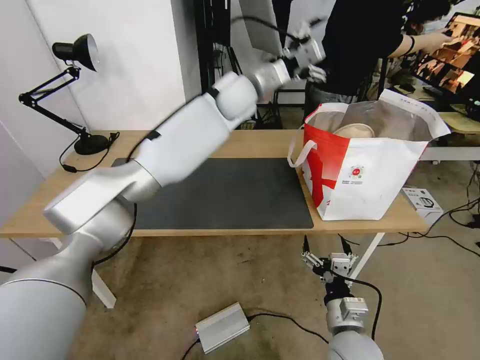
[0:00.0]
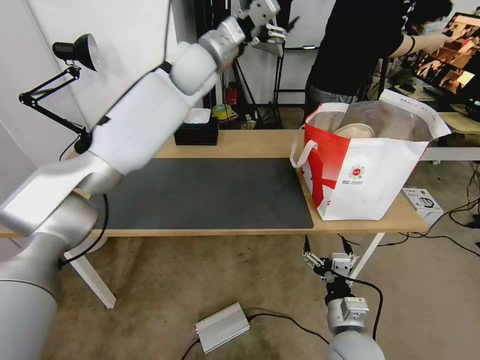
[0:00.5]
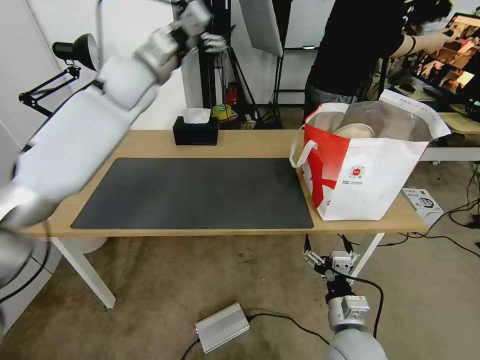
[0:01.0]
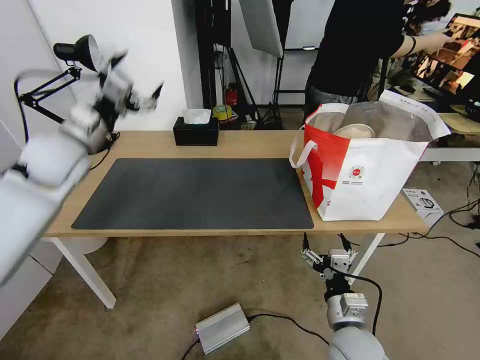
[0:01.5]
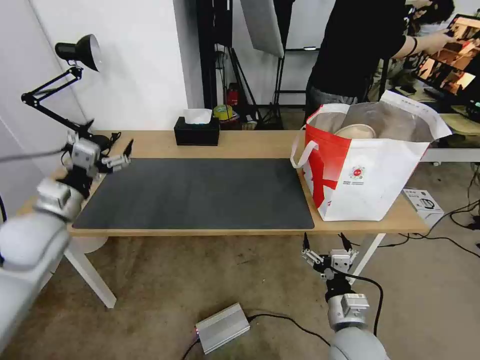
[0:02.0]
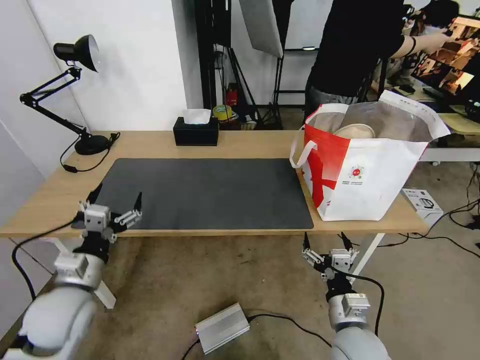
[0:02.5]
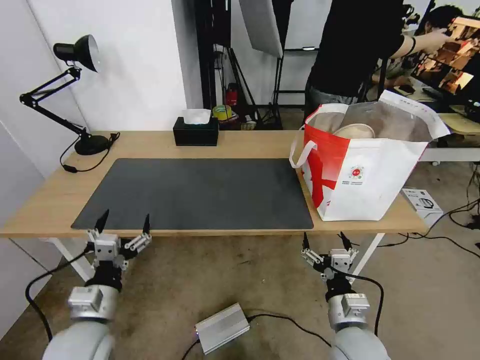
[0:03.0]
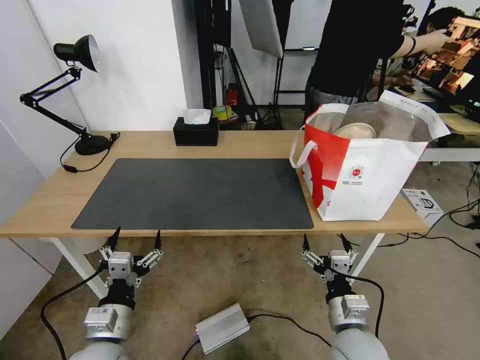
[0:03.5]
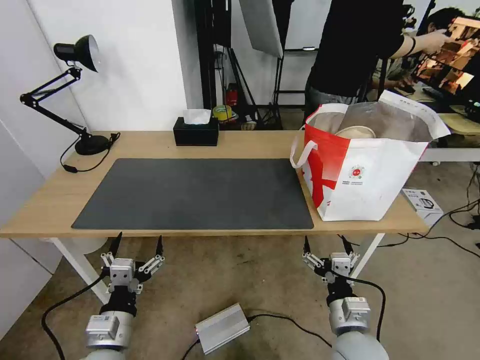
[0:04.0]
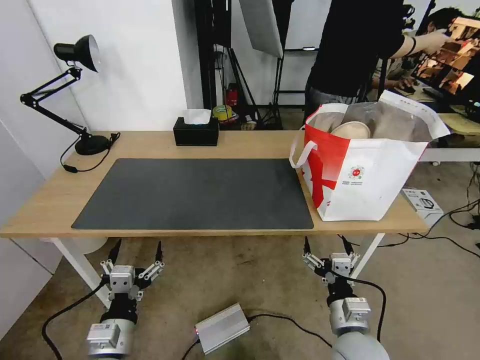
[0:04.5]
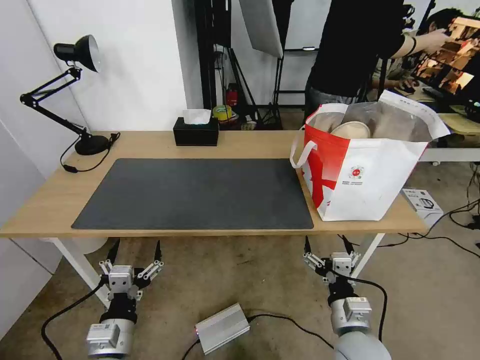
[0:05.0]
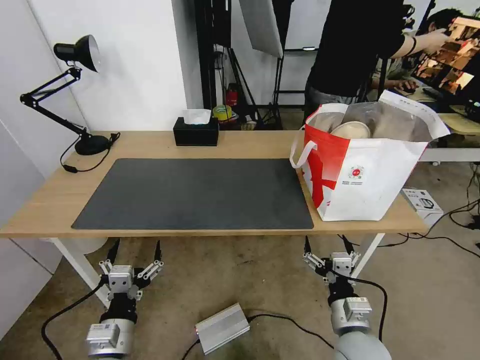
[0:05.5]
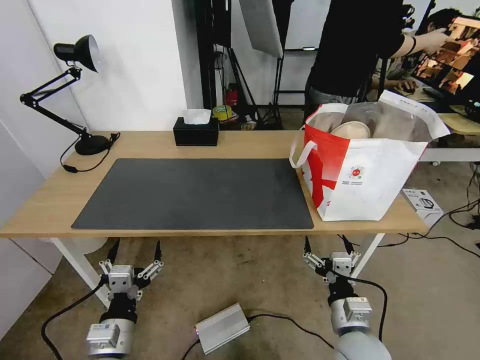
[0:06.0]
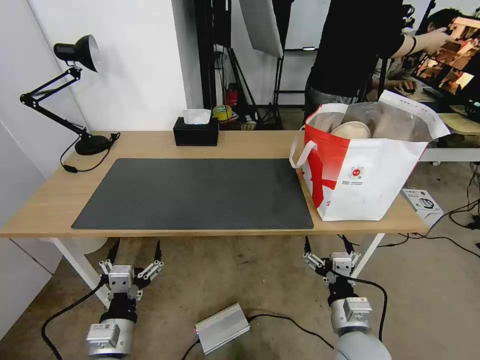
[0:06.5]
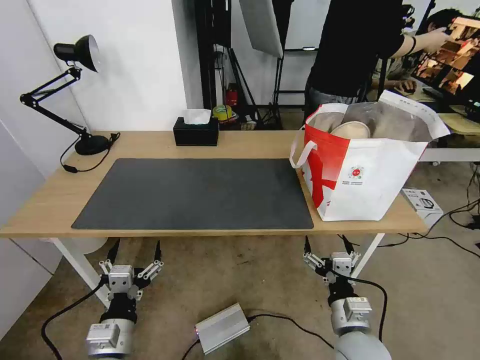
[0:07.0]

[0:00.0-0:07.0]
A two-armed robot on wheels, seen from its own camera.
Task of the whole recording: Pick up the trash from the table and place it into the takeout bag.
0:00.0 to 0:02.0: The left gripper shifts some 50 cm to the left, backward and downward.
0:02.0 to 0:03.5: The left gripper goes roughly 25 cm backward, downward and to the right.
0:03.5 to 0:05.0: The grippers move only a little.
0:05.0 to 0:07.0: Both grippers stay put.
